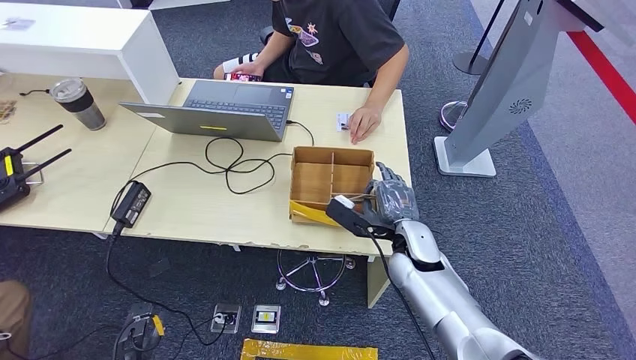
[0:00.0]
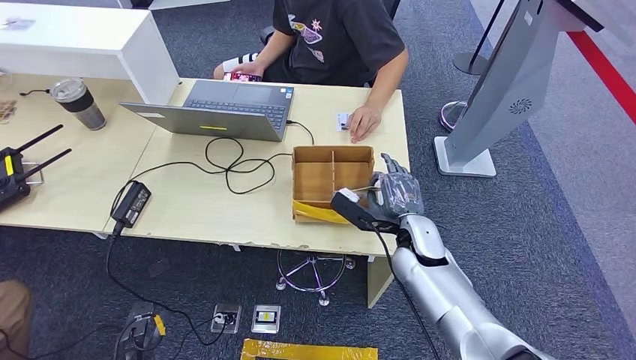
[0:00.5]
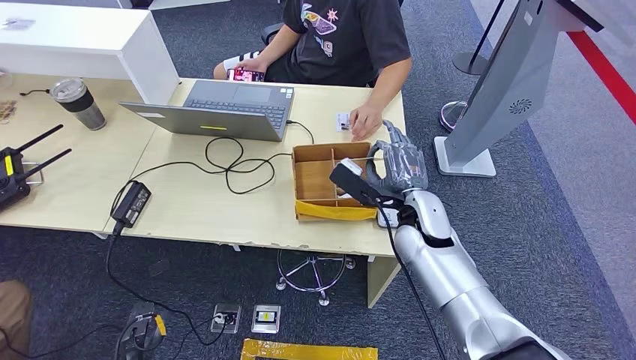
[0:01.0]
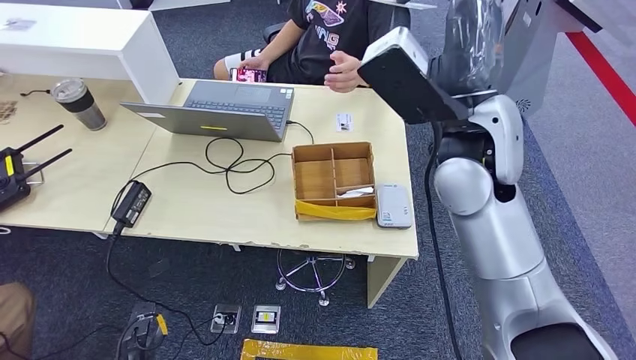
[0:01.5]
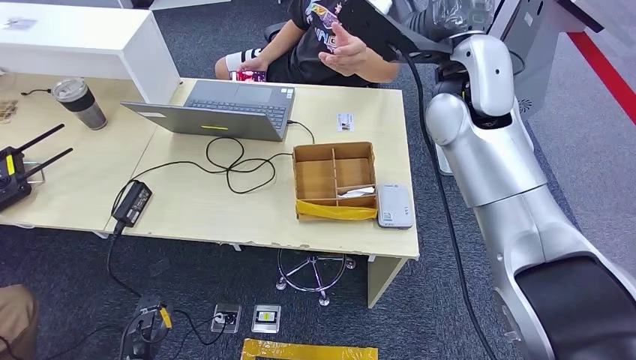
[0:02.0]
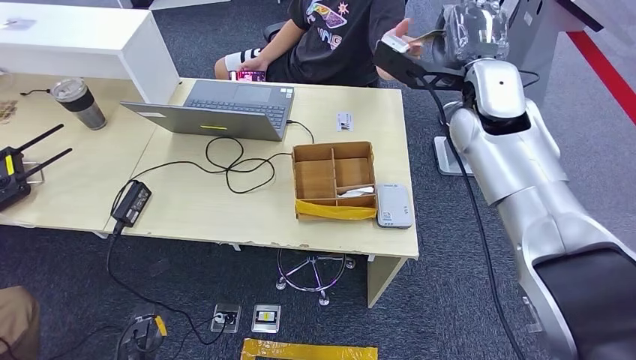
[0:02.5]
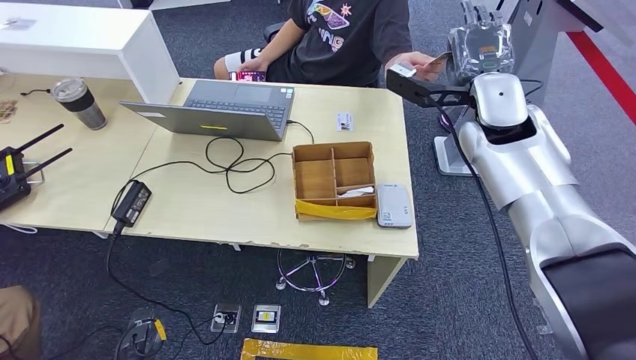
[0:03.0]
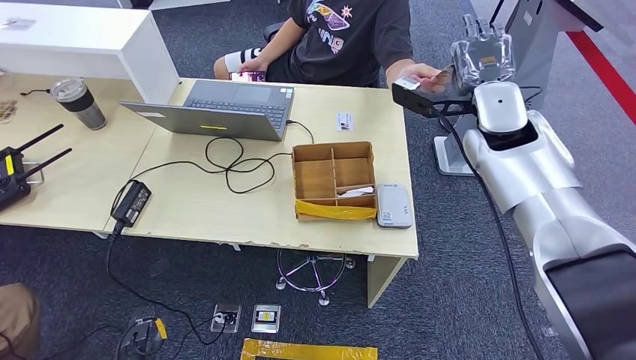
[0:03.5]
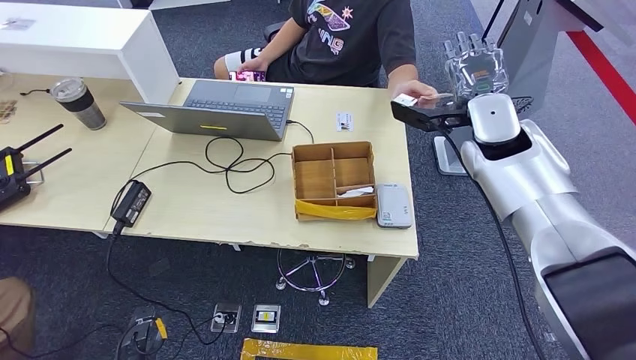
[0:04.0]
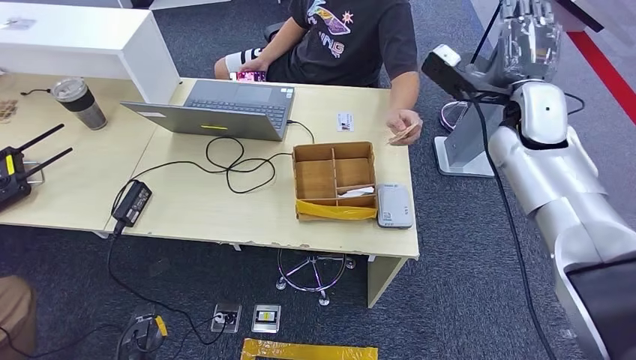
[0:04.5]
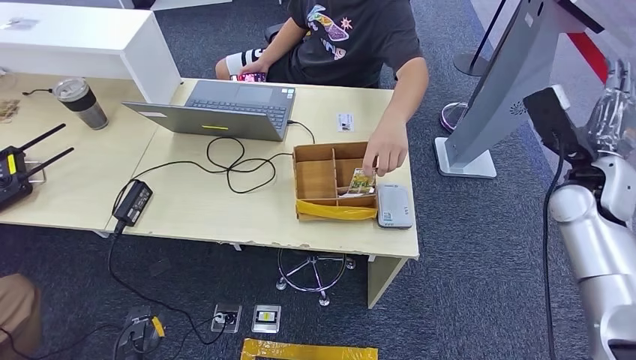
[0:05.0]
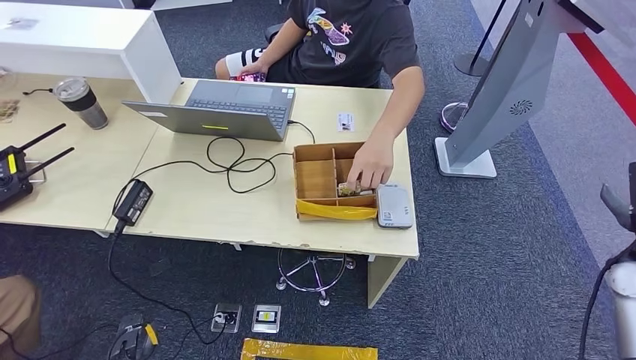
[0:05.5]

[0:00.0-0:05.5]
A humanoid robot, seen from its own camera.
Step, 0:01.0 to 0:05.5: Hand the room key to the person.
0:02.0 to 0:03.5: The right hand travels to the right and downward by about 10 cm.
0:03.5 to 0:05.5: The right hand is displaced to the right, backward and downward by roughly 35 cm.
